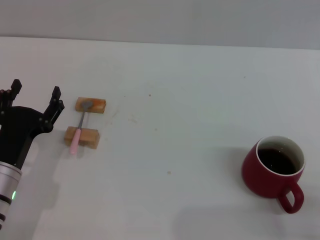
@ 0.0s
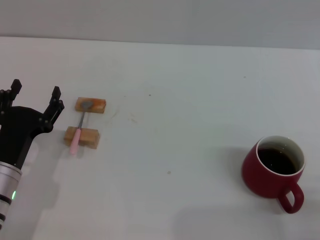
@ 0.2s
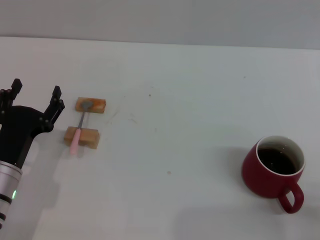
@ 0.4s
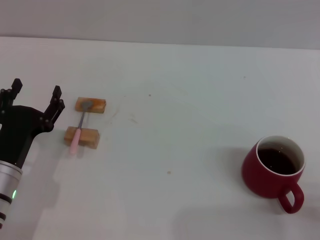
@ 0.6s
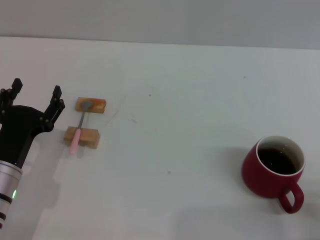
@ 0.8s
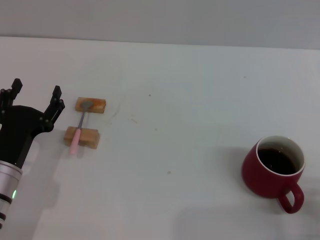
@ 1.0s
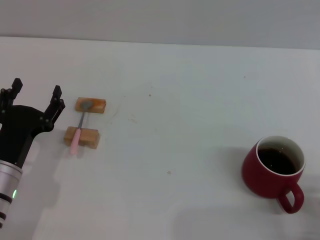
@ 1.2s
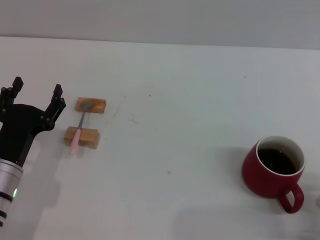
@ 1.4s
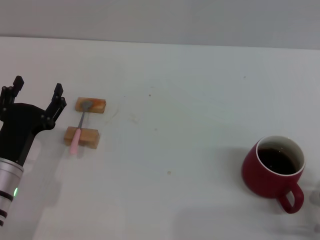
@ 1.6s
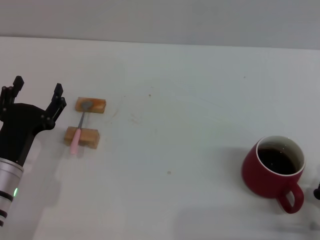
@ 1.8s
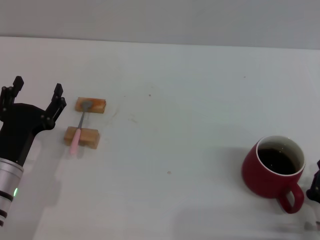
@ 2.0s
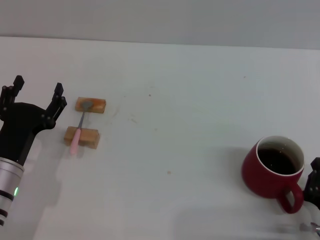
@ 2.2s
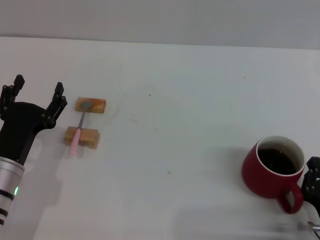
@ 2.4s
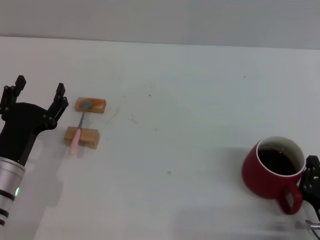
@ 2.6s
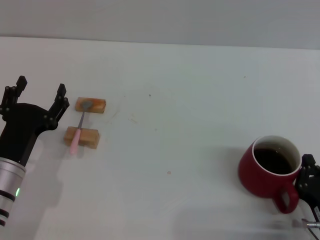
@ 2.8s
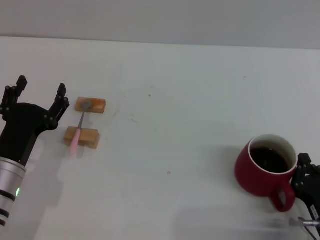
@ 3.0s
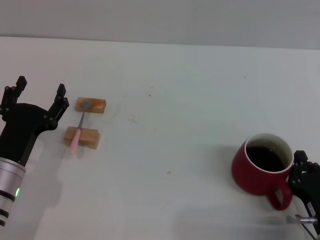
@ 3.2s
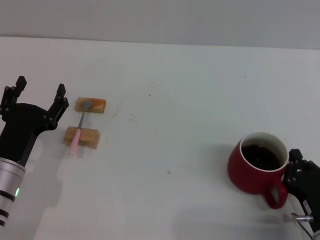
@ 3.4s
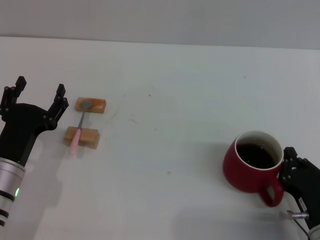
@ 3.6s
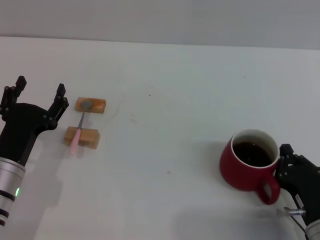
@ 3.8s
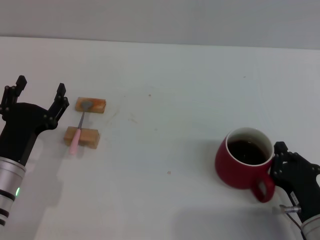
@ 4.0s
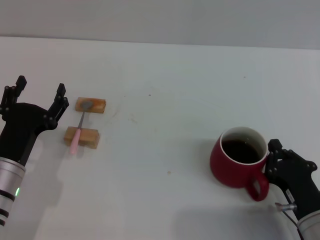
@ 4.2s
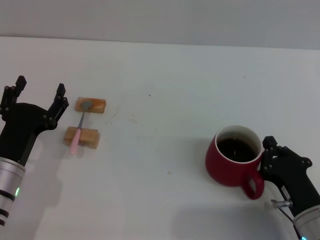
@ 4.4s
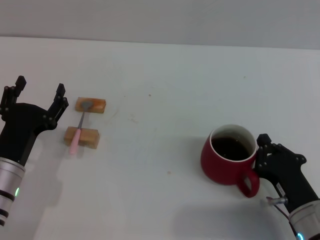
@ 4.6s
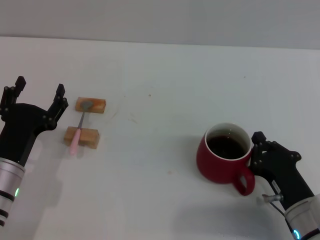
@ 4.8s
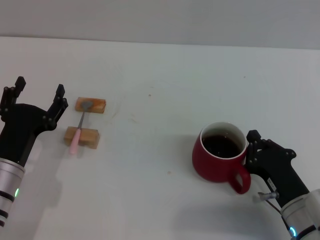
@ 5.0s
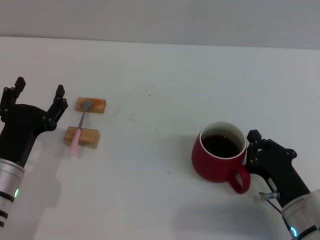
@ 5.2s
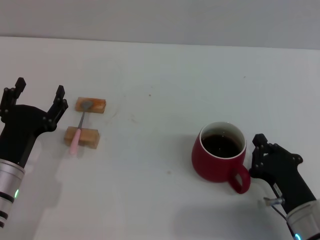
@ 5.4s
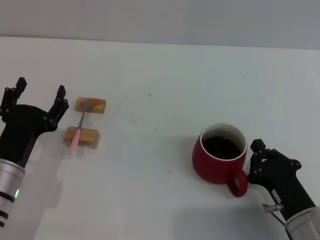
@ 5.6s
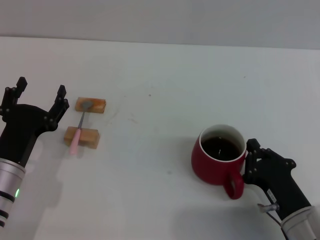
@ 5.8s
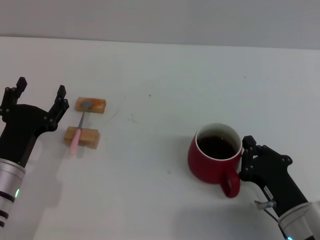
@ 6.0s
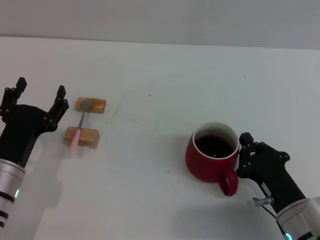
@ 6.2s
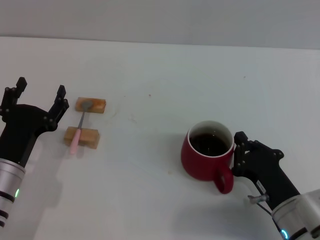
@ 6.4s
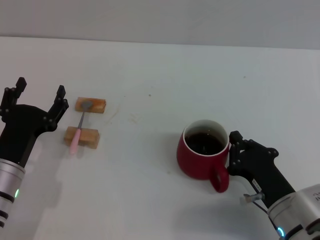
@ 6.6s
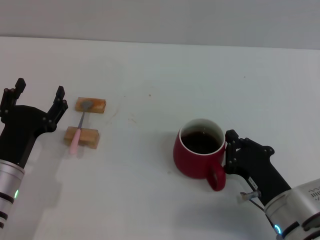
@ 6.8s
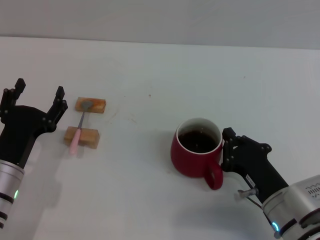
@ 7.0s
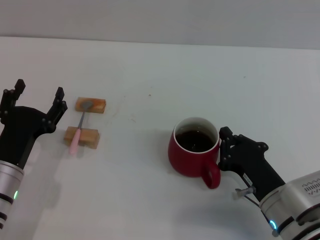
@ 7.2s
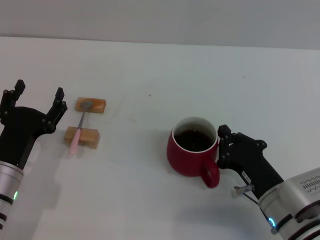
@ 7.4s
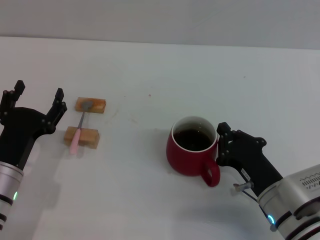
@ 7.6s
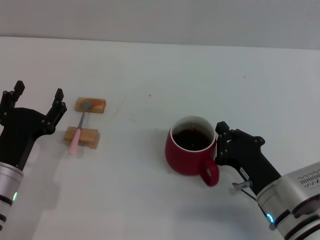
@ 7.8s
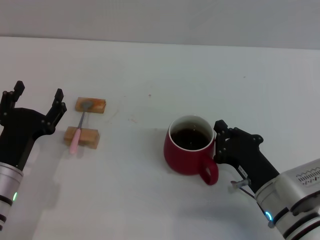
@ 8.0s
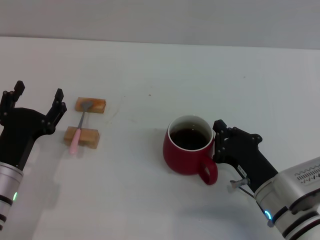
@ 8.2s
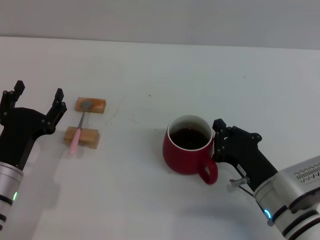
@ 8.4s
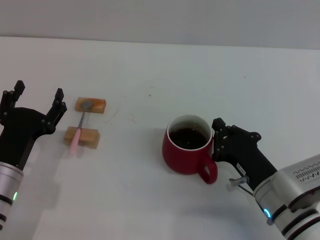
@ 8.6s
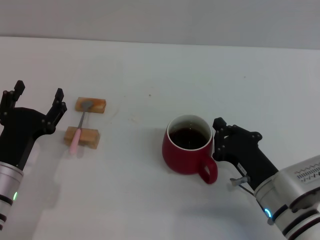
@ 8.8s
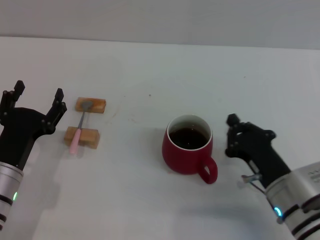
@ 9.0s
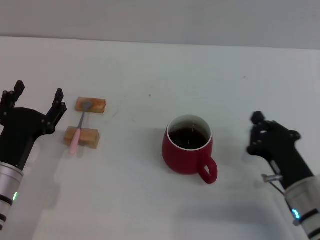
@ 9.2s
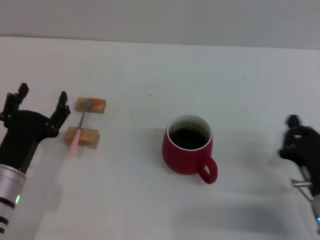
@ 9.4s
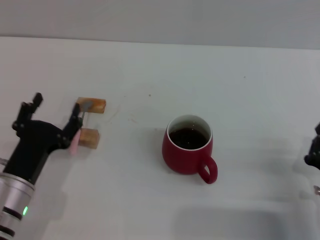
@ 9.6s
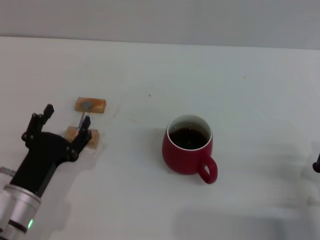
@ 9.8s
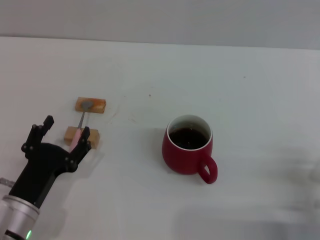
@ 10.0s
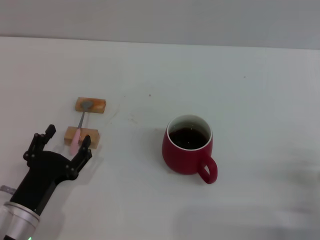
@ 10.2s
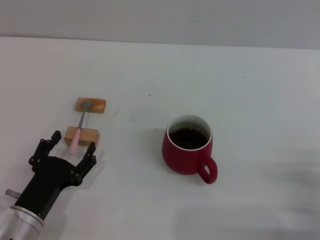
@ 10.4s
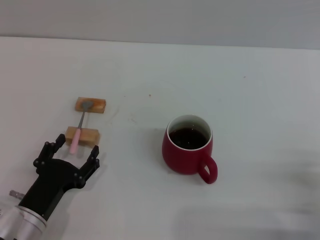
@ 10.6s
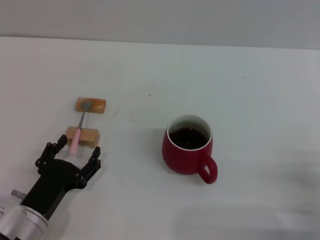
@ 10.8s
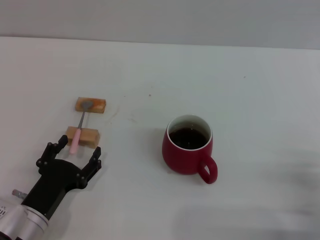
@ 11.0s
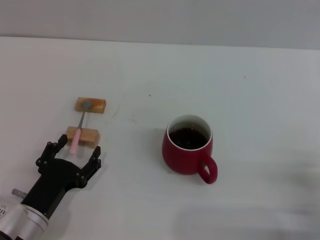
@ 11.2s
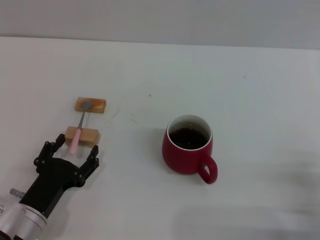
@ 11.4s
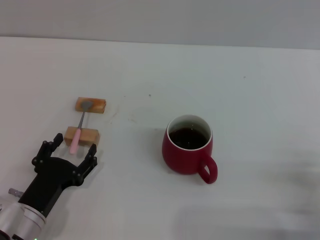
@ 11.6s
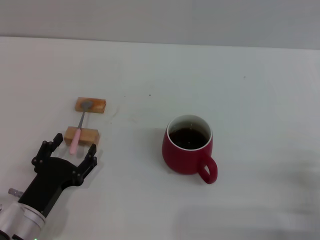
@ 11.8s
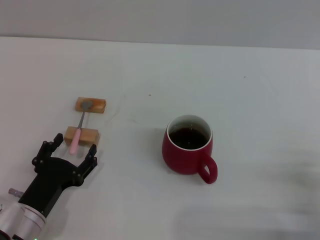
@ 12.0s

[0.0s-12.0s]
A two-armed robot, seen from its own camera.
Task of the whole recording: Move the red cup to the center, lift the pink spoon, stir it three times in the cup, and put the spoon into the cup.
Step, 0.0s to 9.0s: Move the cup with coffee to the center of view with the right gripper.
1.6s to 3.0s: The grippers make only small movements.
3.0s to 4.4s: There are only small adjustments of the grippers.
4.4s to 7.6s: The grippers move only a little.
7.6s to 9.0s: Neither gripper changes place.
9.0s to 10.4s: The left gripper travels backward by about 5 cm, while the right gripper is displaced to the right and backward by about 10 cm.
10.4s to 12.0s: Both grippers stay put.

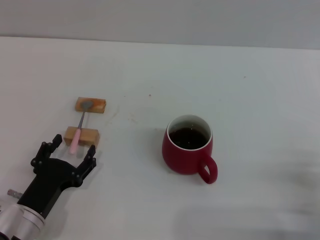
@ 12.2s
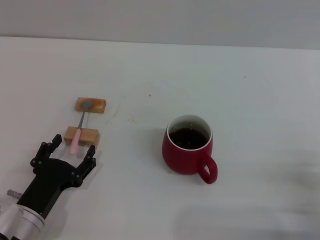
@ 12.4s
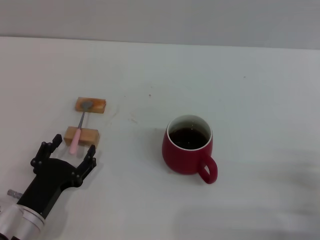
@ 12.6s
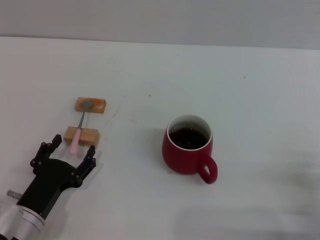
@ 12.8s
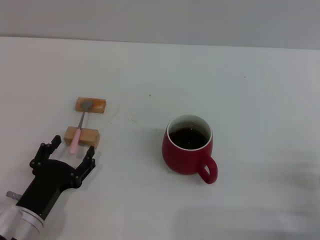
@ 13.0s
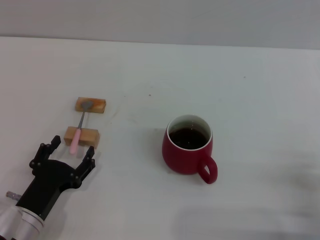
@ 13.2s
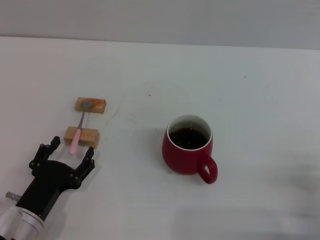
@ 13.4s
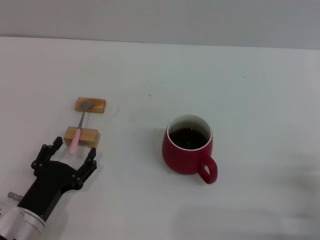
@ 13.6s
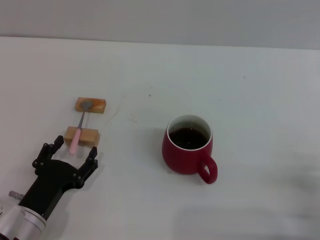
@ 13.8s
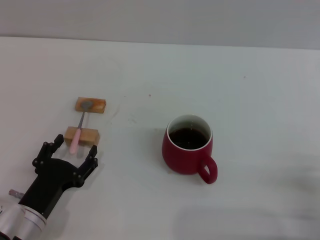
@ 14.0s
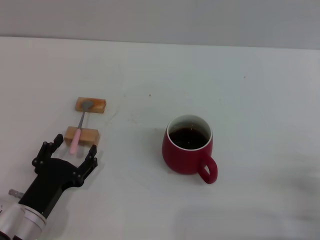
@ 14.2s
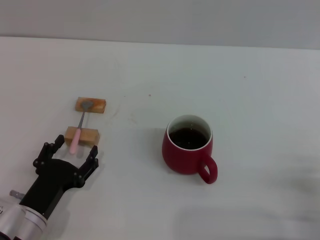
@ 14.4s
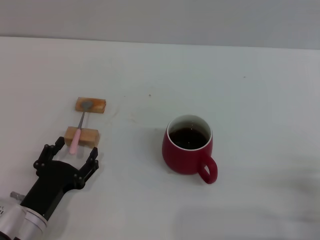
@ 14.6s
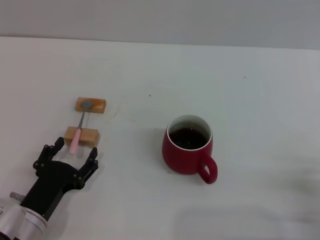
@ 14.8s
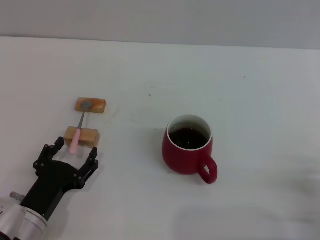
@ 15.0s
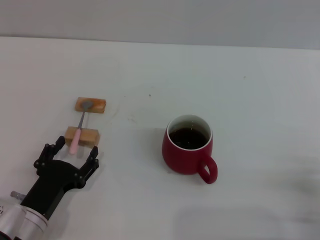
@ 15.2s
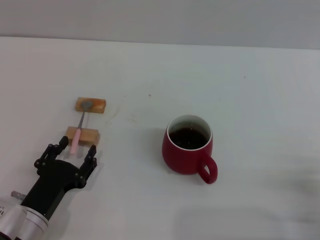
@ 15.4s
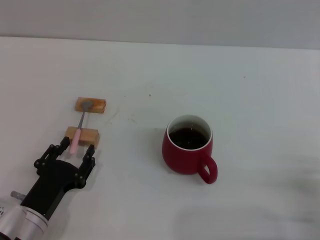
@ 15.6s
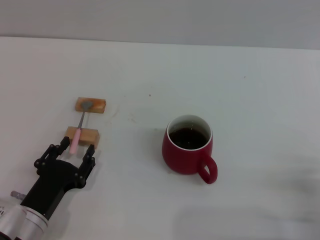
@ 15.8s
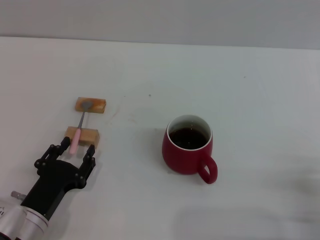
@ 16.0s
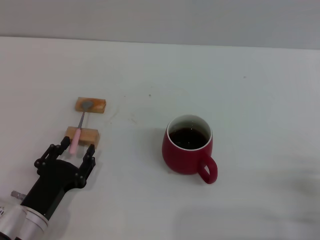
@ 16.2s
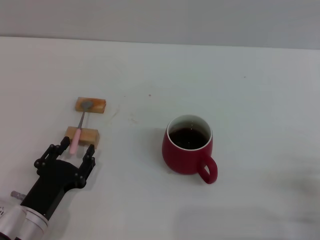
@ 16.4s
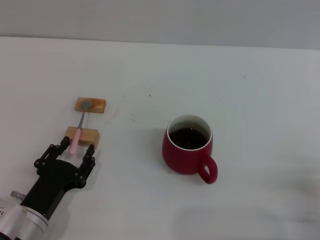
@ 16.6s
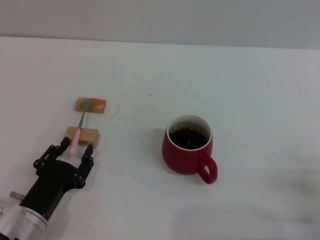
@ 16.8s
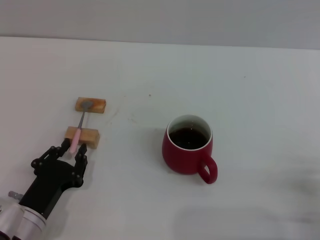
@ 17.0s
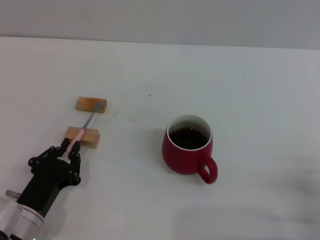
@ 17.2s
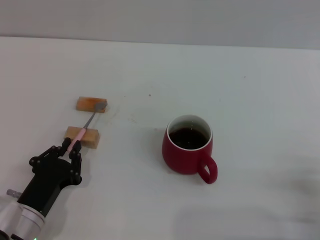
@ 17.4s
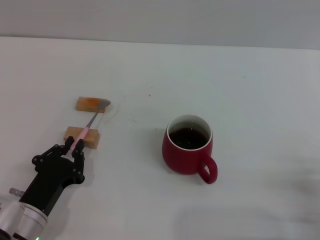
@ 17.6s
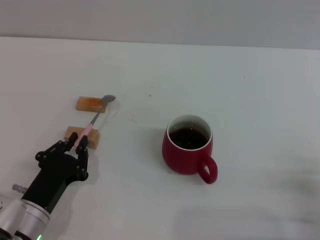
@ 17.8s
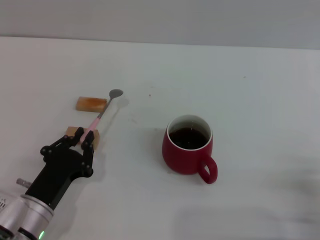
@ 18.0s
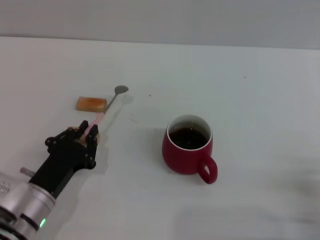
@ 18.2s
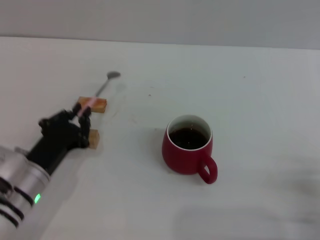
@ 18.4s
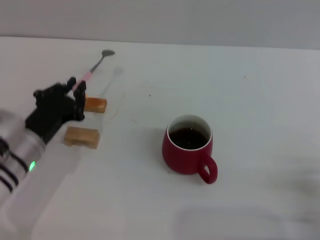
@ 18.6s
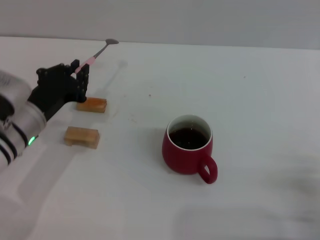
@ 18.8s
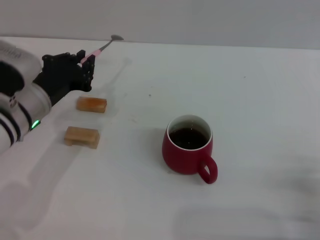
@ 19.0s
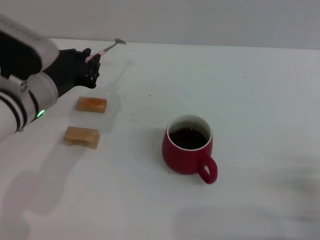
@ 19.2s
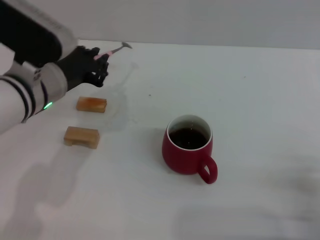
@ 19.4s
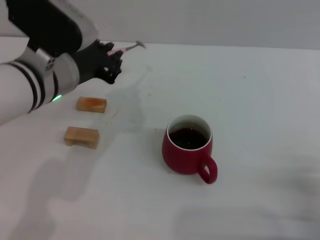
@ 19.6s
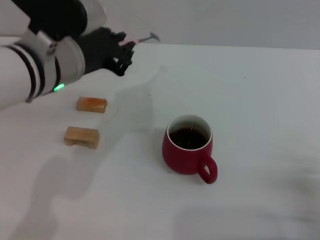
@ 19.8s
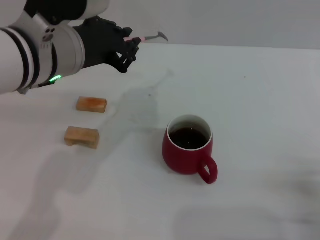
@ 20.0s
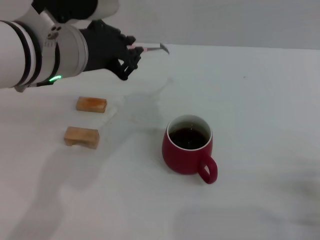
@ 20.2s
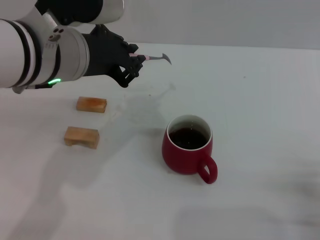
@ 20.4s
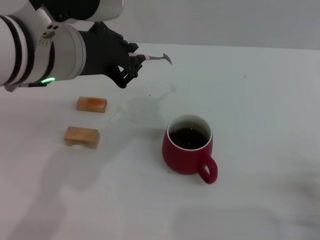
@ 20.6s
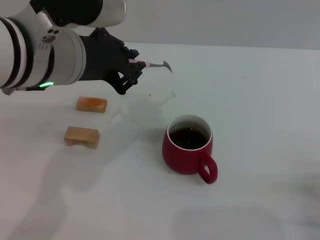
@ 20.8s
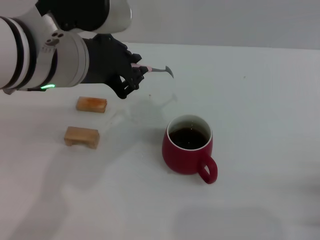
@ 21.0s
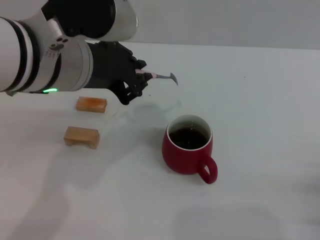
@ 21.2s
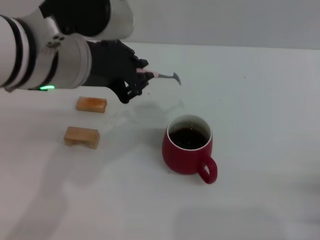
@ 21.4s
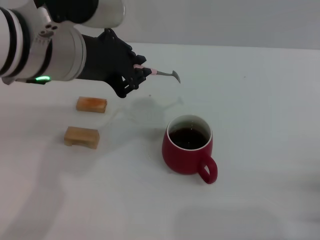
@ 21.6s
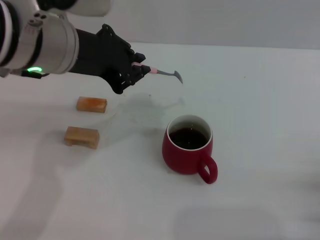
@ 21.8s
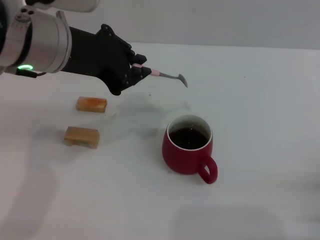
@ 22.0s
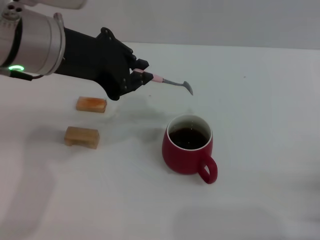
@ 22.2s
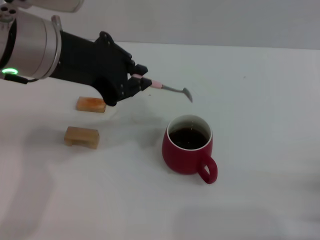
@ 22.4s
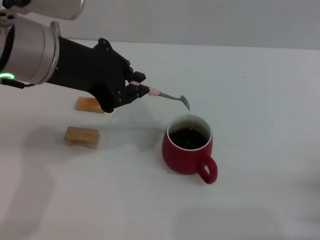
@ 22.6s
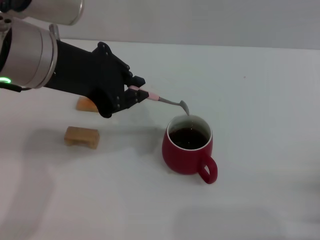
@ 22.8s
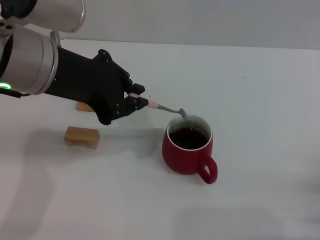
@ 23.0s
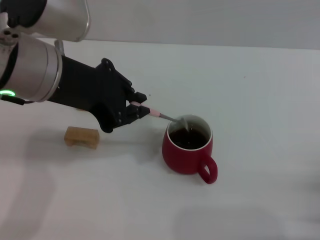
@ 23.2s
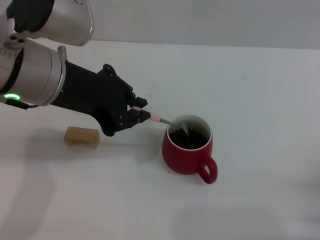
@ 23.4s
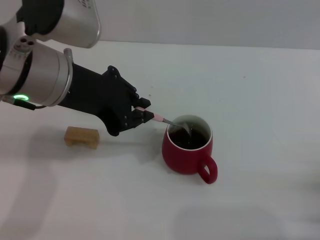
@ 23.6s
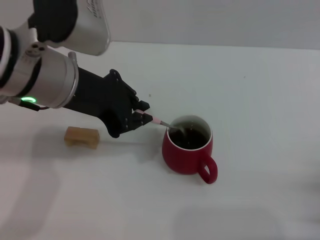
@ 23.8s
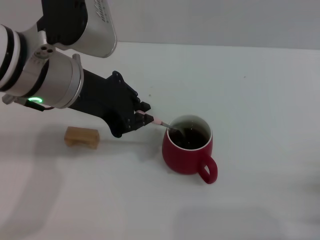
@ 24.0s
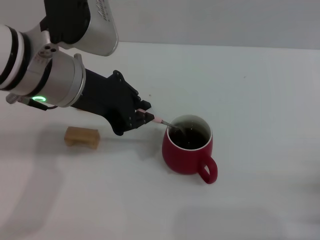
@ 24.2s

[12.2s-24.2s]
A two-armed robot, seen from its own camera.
Task of the whole recording: Move the red cup to the center, lift the pink spoon, stir it three times in the cup, and put the spoon into the cup.
Step, 12.2s to 19.0s: Pick up the spoon with the left gripper.
12.2s to 15.2s: Both grippers stay about where they are.
15.2s to 16.6s: The left gripper closes its fingers.
16.6s to 18.2s: The left gripper closes up.
18.2s to 19.8s: The left gripper travels upward and forward by about 25 cm.
19.8s to 21.2s: The left gripper moves roughly 5 cm.
21.2s to 24.2s: The grippers make only small movements.
